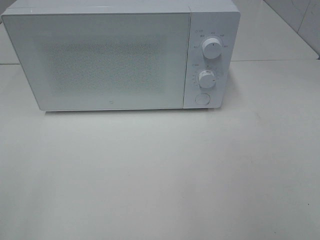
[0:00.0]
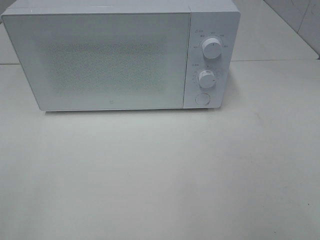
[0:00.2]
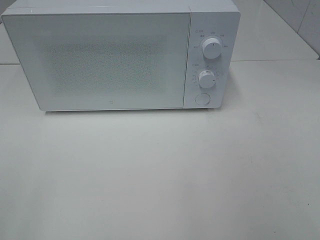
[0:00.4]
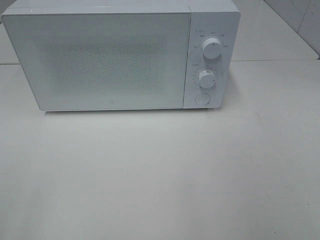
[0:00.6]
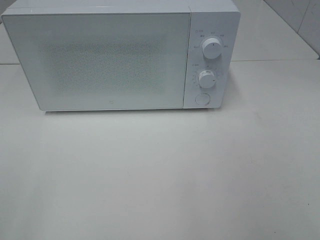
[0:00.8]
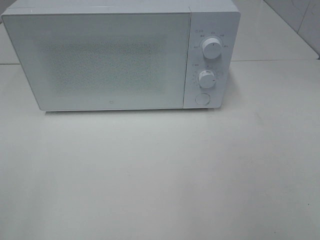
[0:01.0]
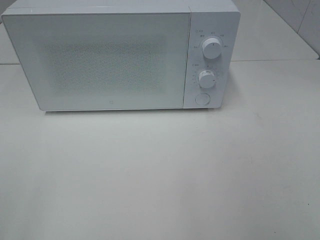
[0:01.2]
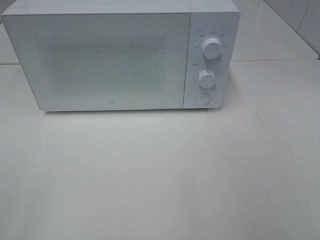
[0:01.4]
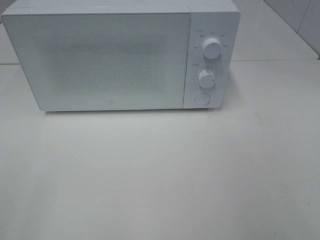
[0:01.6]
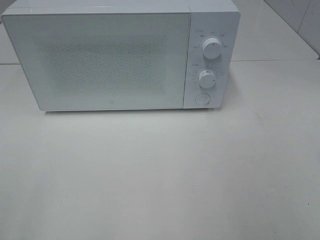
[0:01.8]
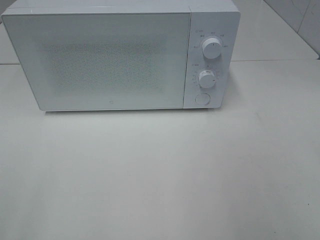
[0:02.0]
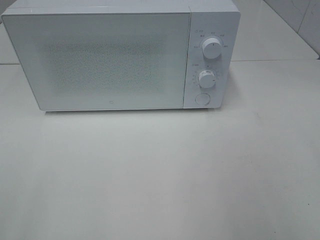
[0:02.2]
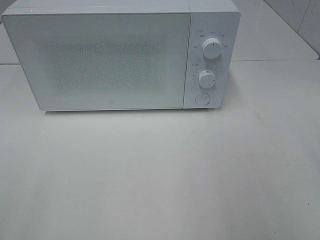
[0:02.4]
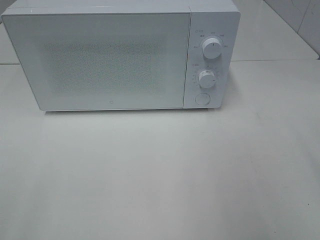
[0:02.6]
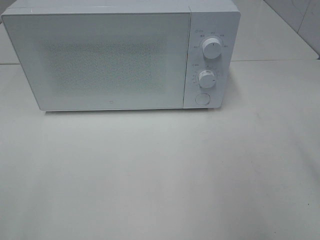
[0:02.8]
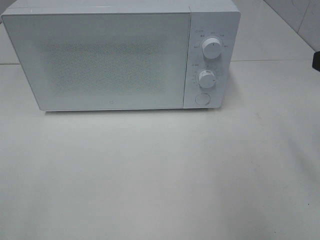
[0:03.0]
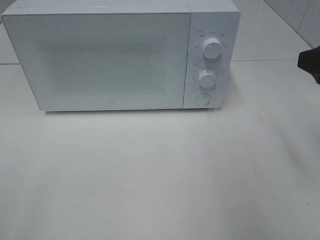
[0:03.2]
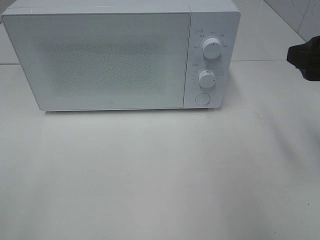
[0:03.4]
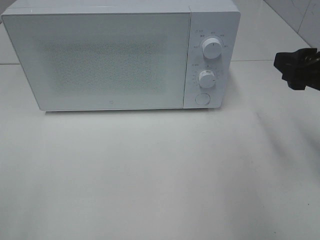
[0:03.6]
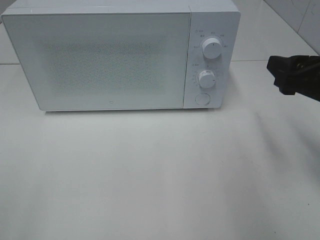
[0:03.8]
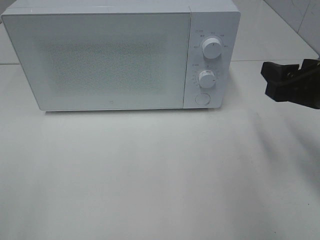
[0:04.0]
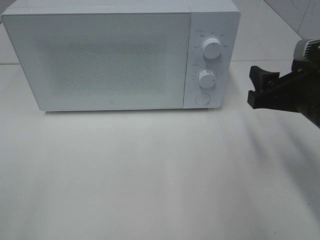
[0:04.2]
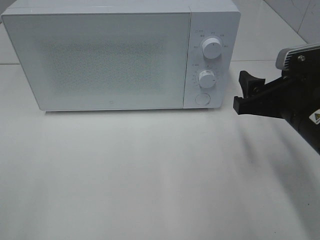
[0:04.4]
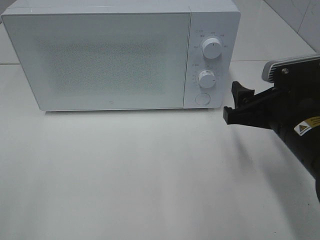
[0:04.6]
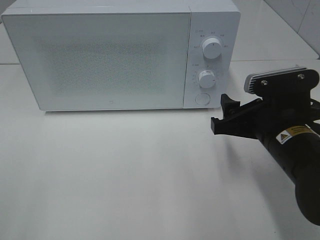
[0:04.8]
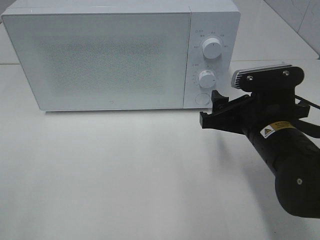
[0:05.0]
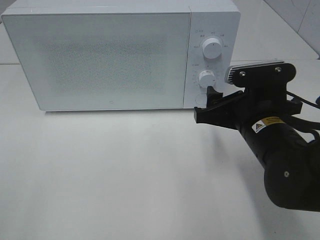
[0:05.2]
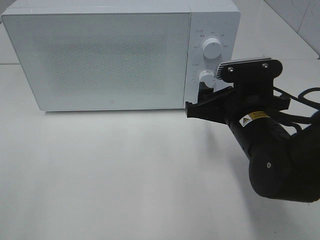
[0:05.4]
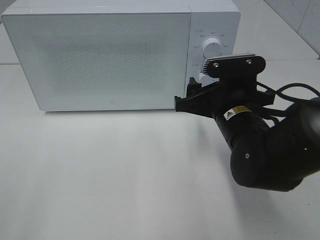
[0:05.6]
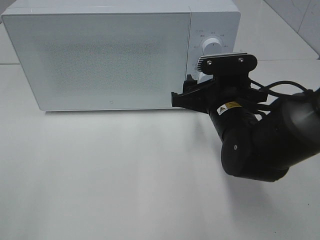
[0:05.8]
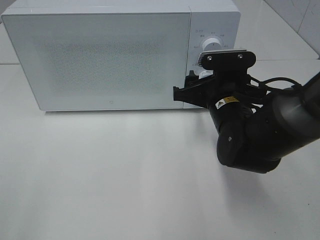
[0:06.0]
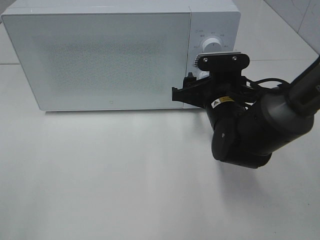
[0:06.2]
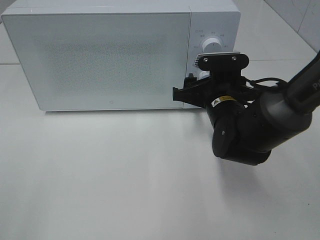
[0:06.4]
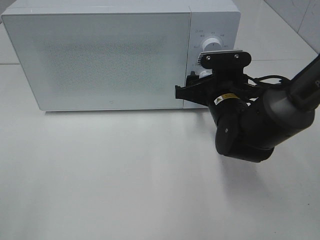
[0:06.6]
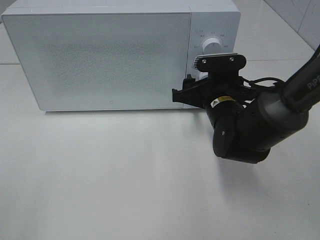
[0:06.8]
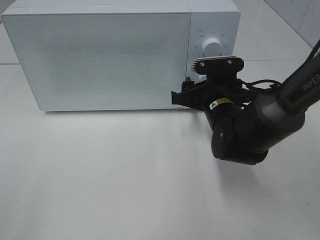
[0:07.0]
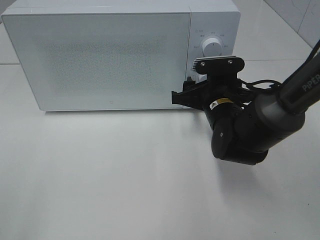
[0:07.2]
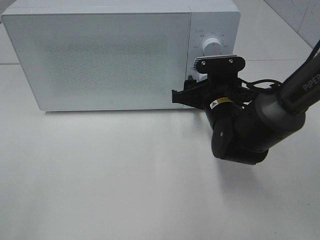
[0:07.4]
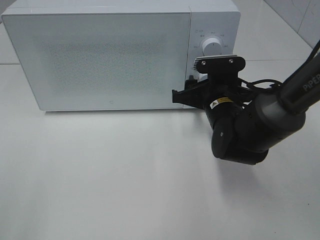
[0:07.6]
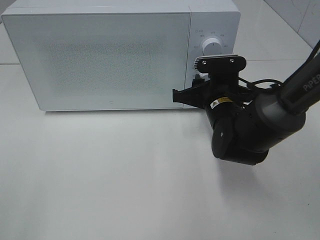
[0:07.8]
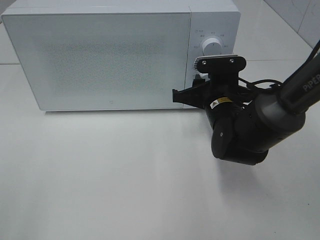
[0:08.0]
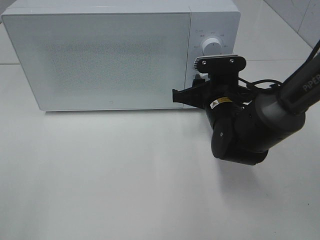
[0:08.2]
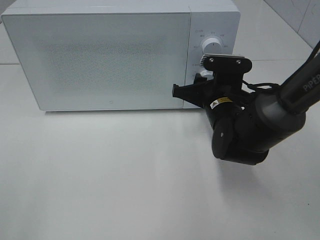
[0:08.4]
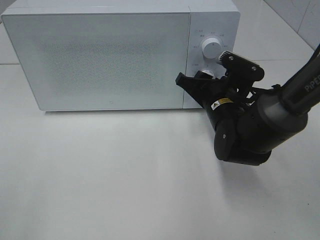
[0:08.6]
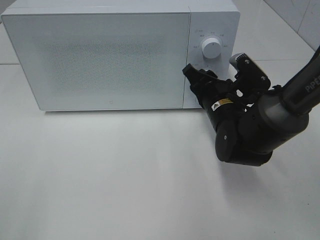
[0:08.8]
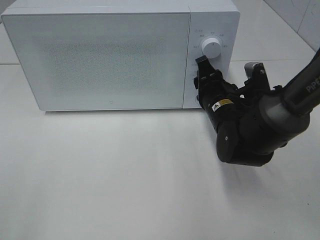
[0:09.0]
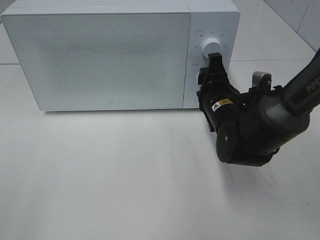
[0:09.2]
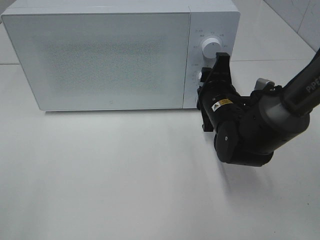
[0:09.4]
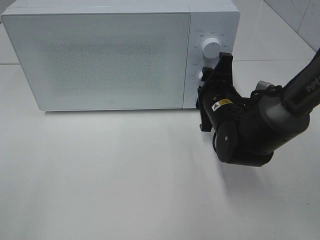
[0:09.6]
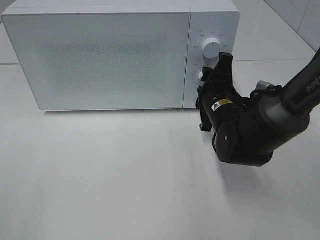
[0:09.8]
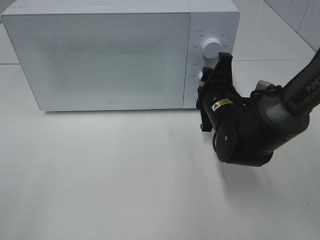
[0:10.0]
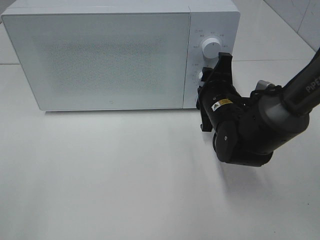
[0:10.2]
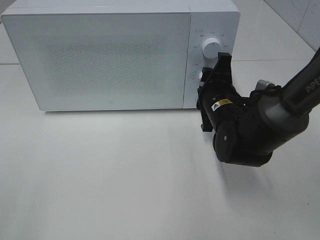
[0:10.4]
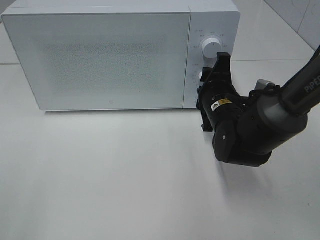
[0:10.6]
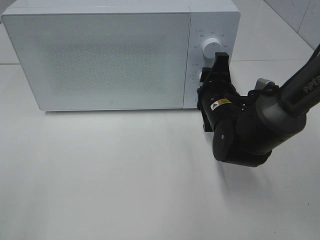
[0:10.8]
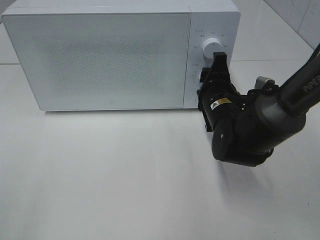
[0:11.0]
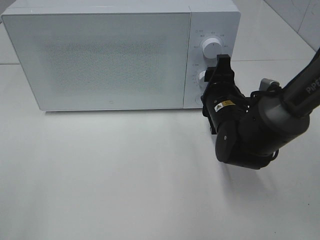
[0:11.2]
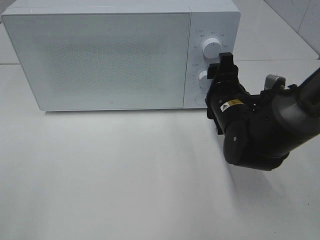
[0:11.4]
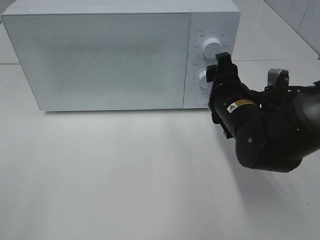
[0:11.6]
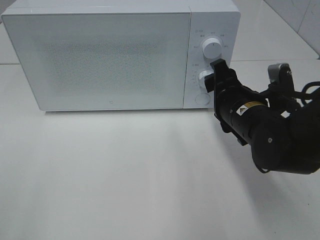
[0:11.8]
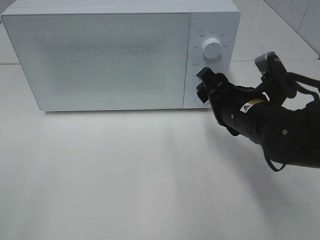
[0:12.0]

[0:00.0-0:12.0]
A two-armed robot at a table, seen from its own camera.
Task of the whole recording: Heat the burger.
Step, 0:00.0 to 0:11.0: Right hand: twist timer button.
0:00.0 to 0:01.6: Neither gripper changes place.
0:03.0 to 0:04.4: The right gripper goes some 10 cm downward and to the left.
0:04.4 to 0:06.0: The right gripper travels to the left, forward and downward by roughly 15 cm.
0:06.0 to 0:07.6: The grippers stay close to where they were, moving slightly.
0:10.4 to 0:12.0: The right gripper travels backward by about 5 cm.

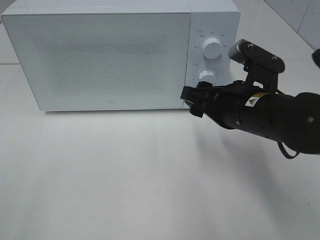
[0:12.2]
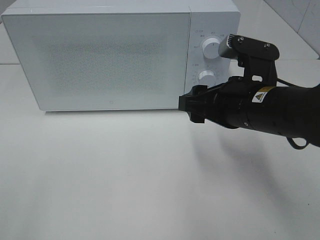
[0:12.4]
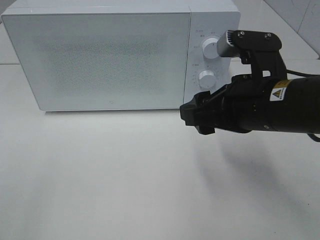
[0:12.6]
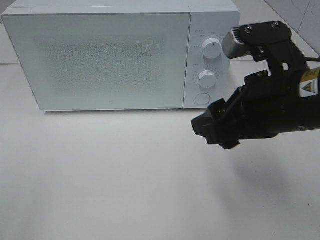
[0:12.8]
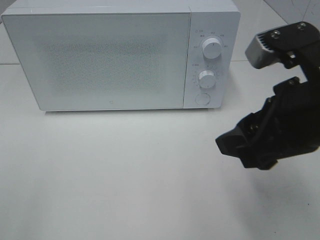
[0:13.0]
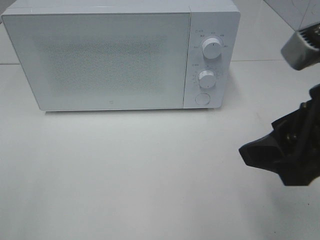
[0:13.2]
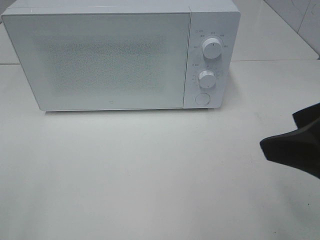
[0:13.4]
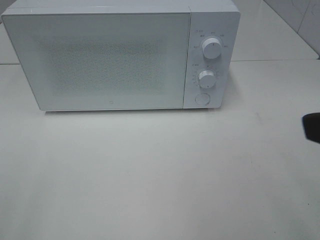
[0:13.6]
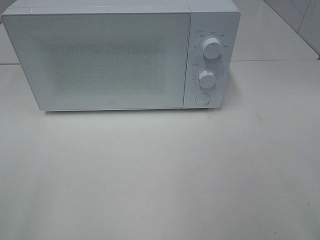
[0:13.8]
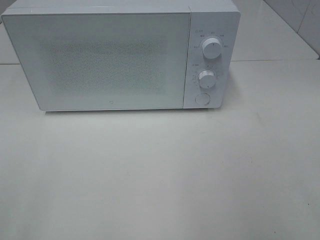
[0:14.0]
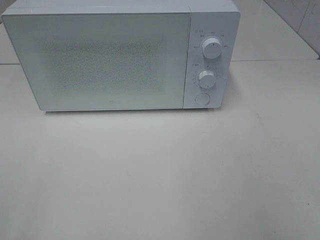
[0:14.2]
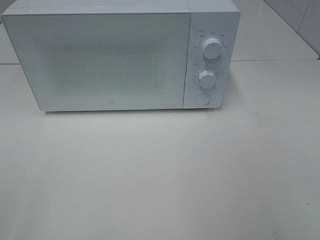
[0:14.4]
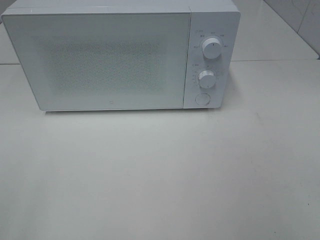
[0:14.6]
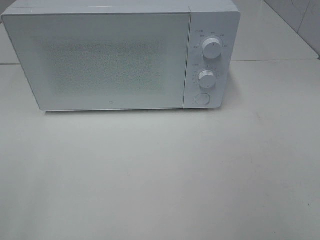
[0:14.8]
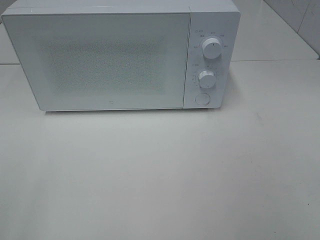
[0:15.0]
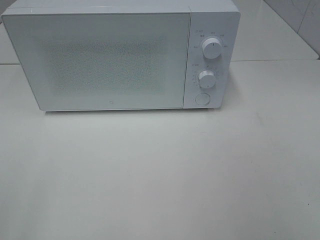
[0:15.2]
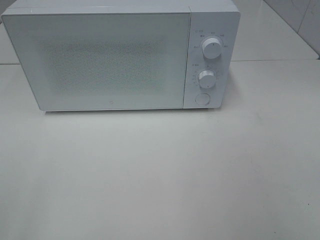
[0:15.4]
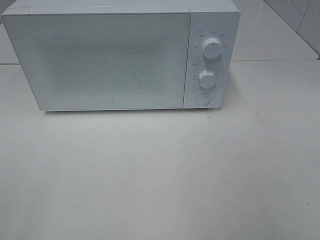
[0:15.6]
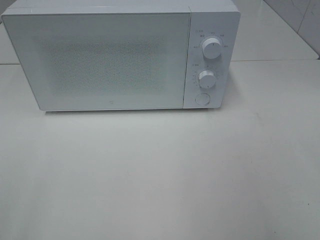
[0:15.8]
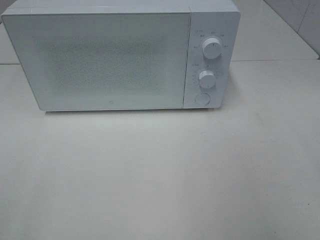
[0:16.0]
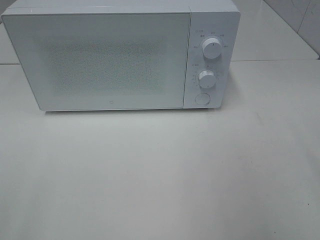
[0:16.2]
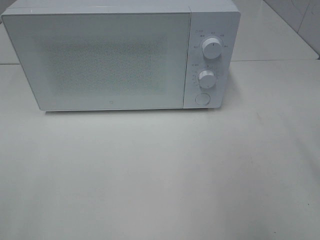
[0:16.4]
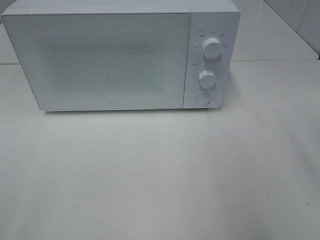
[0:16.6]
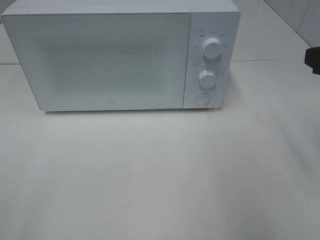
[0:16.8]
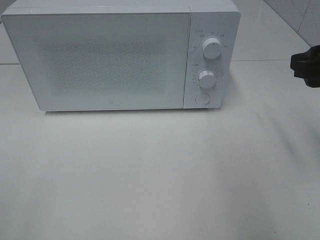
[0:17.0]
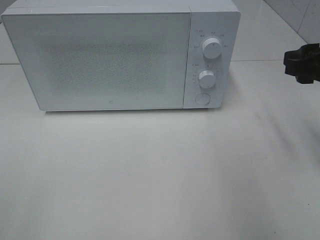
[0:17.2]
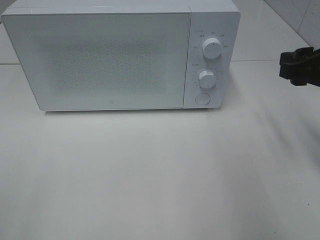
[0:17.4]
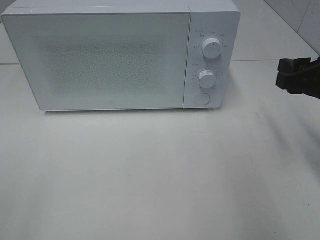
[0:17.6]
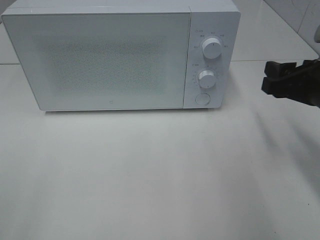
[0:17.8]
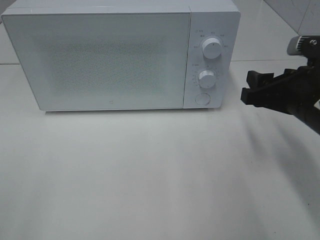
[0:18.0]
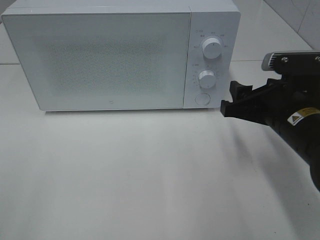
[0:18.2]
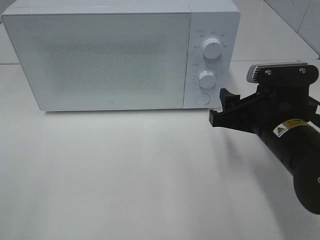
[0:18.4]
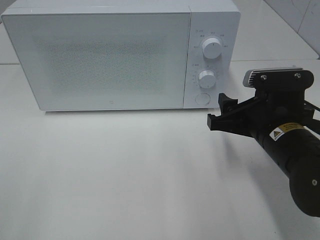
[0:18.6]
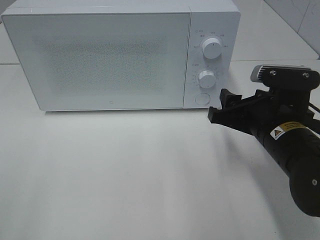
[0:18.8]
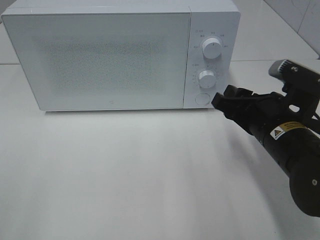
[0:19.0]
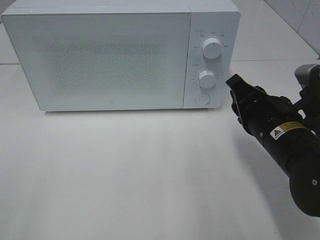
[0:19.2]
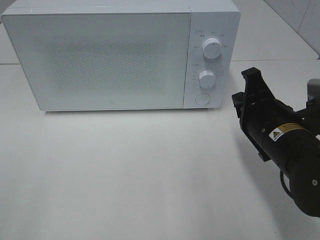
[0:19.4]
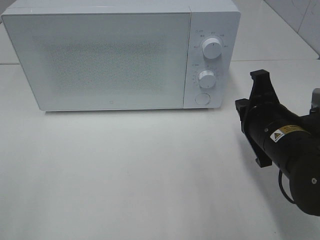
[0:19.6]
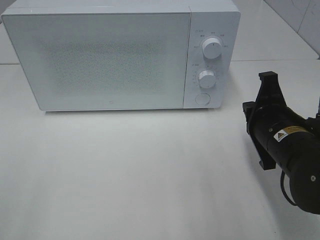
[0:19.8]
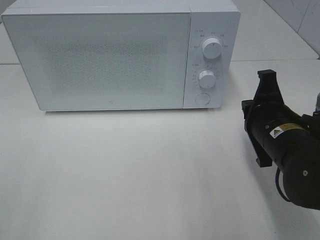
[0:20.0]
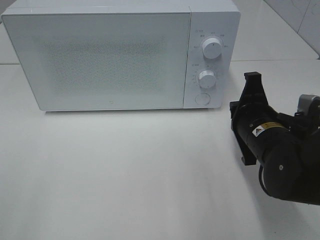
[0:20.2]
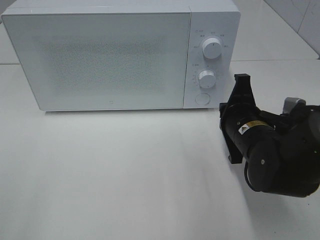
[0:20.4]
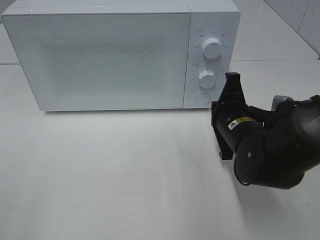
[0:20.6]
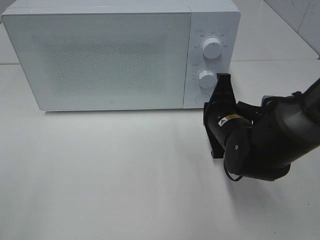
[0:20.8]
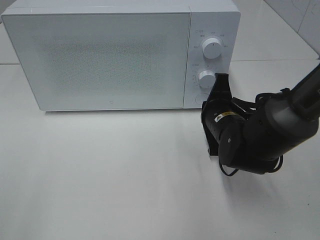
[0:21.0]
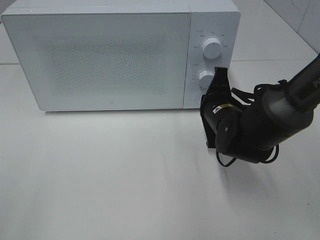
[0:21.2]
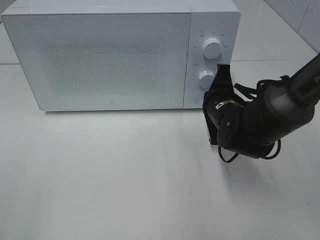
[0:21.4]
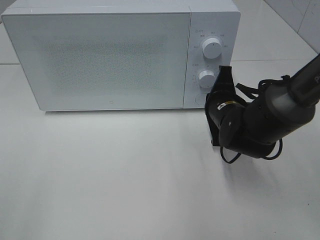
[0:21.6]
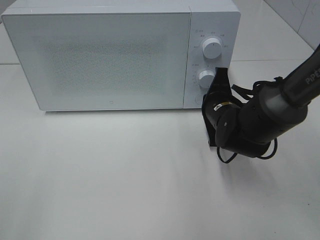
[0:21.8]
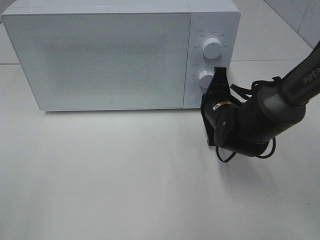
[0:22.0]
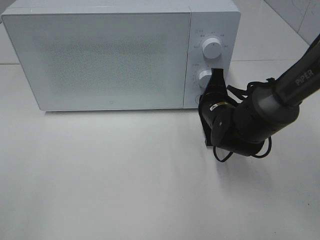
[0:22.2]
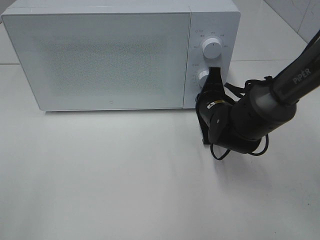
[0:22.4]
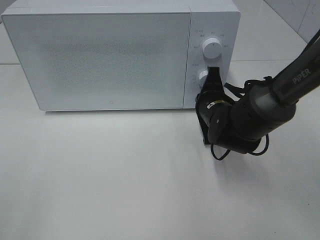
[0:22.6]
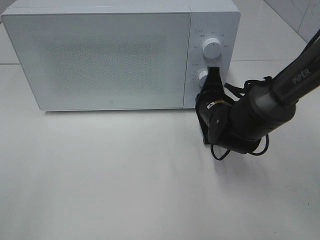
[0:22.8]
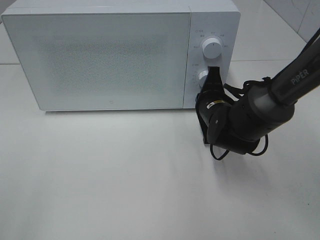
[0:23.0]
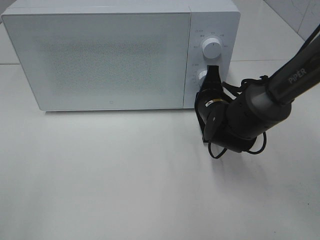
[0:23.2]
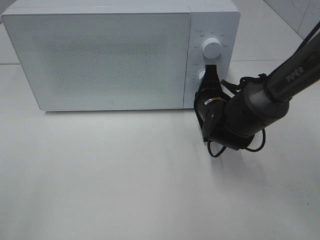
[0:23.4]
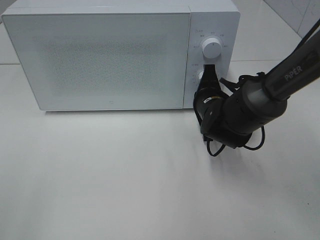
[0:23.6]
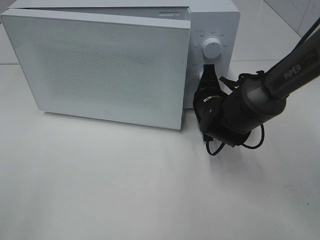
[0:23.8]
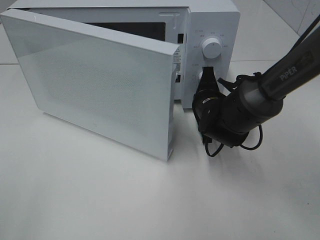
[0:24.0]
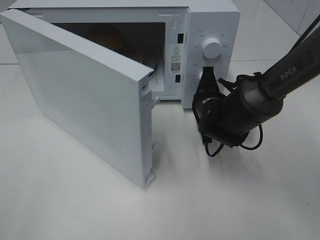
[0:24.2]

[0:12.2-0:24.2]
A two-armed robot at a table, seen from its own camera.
Task of the whole recording: Heat the burger.
0:12.2 to 0:13.8: The right gripper goes roughly 25 cm backward, upward and to the right.
0:16.6 to 0:18.2: The right gripper is displaced downward, to the left and forward by some 15 cm.
0:18.2 to 0:19.8: The right gripper closes up.
0:19.8 to 0:21.2: The right gripper goes approximately 10 cm forward and to the left.
0:21.2 to 0:22.6: There are only small adjustments of the grippers.
